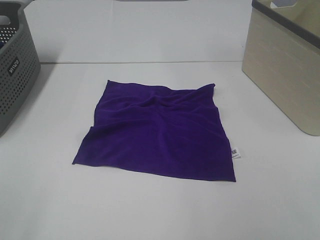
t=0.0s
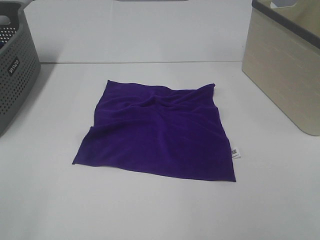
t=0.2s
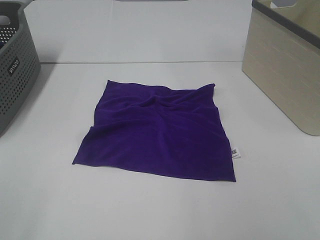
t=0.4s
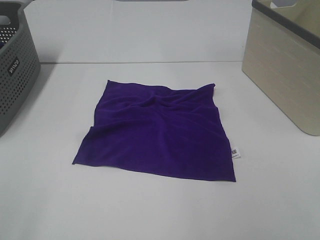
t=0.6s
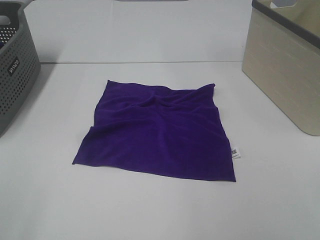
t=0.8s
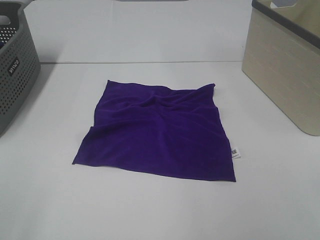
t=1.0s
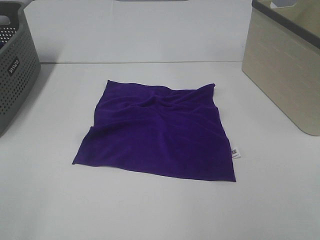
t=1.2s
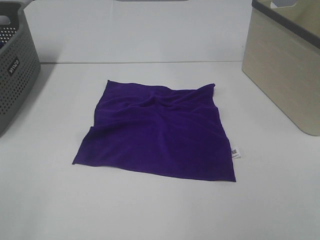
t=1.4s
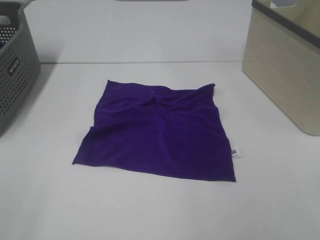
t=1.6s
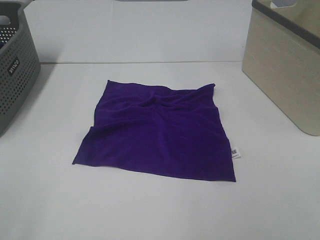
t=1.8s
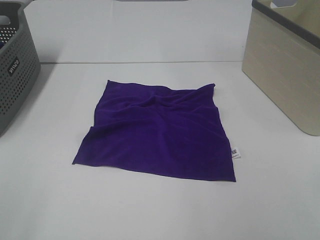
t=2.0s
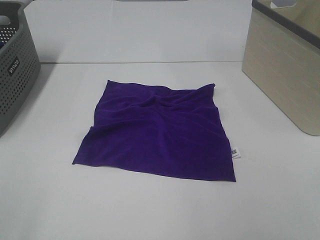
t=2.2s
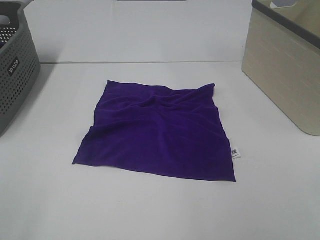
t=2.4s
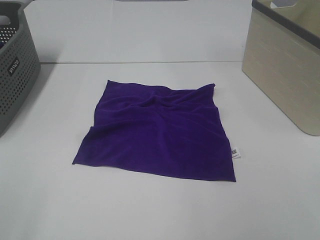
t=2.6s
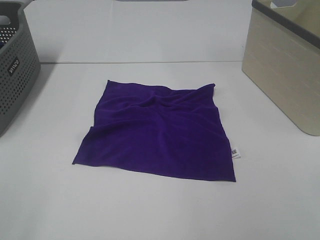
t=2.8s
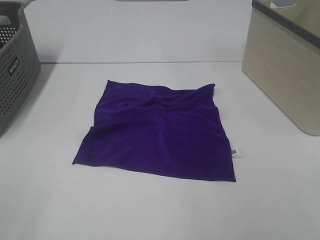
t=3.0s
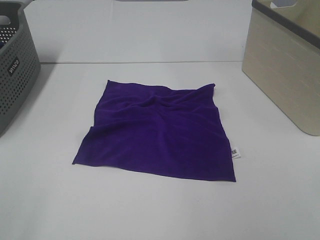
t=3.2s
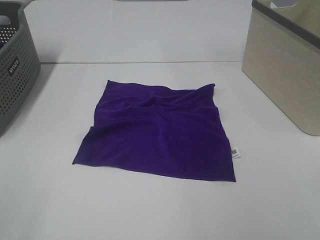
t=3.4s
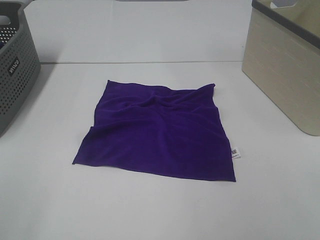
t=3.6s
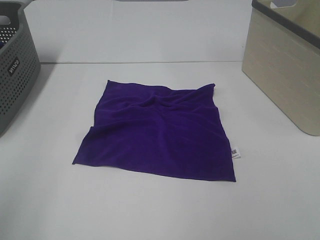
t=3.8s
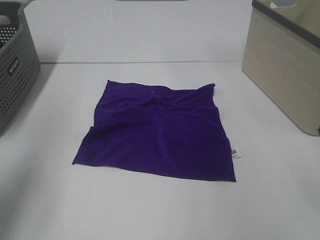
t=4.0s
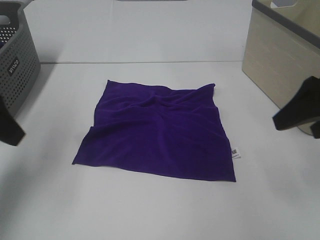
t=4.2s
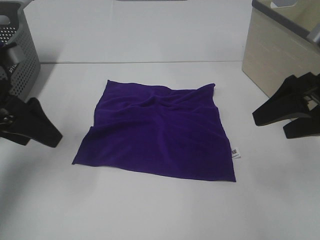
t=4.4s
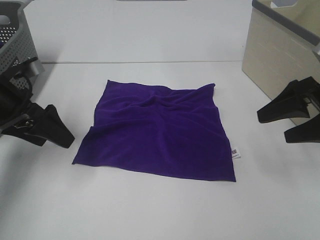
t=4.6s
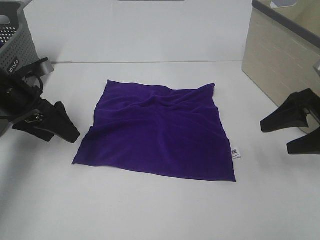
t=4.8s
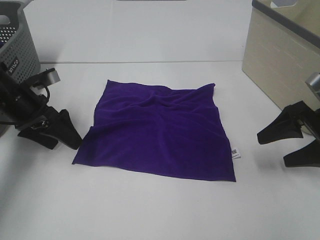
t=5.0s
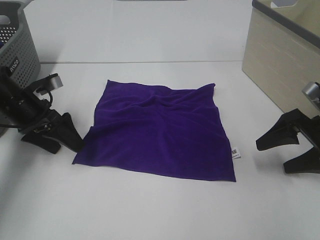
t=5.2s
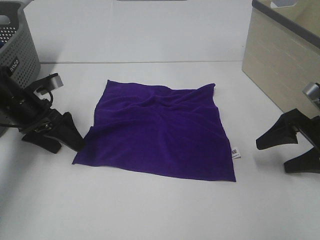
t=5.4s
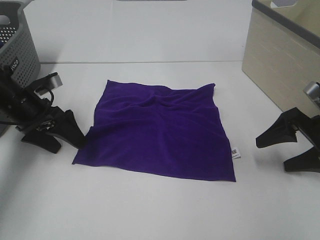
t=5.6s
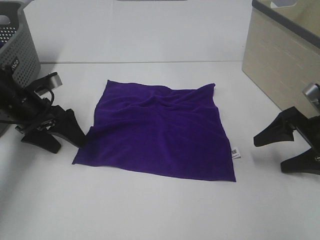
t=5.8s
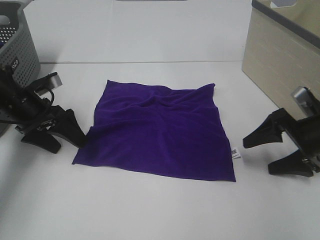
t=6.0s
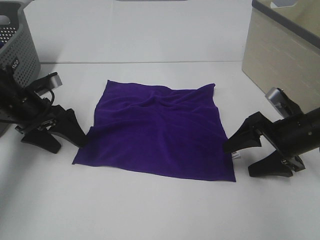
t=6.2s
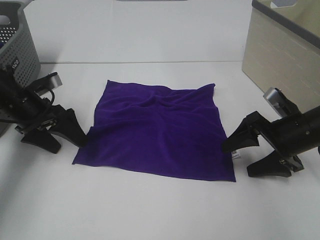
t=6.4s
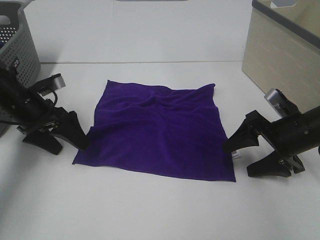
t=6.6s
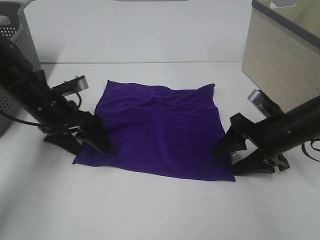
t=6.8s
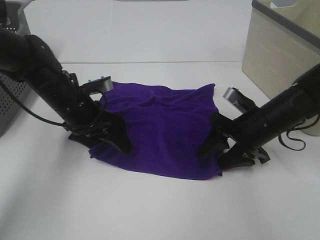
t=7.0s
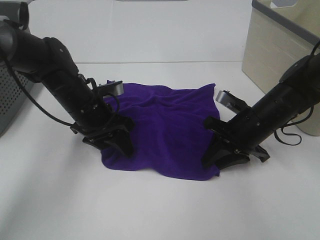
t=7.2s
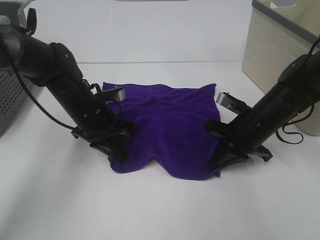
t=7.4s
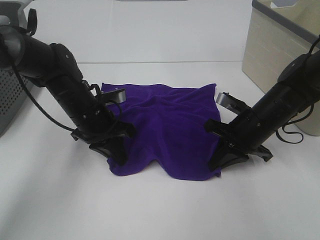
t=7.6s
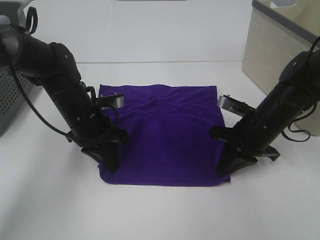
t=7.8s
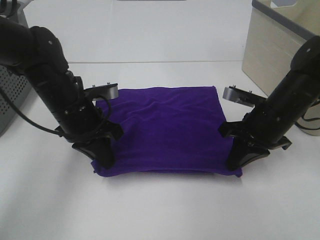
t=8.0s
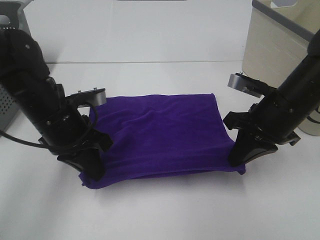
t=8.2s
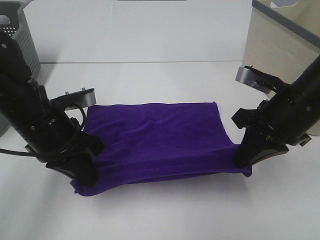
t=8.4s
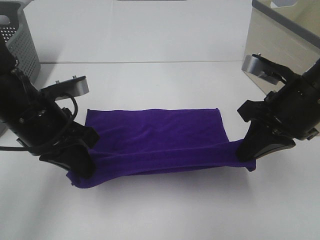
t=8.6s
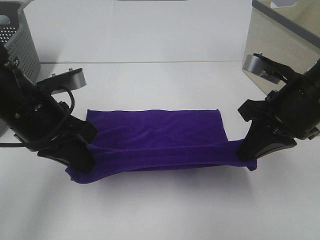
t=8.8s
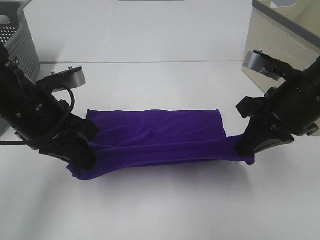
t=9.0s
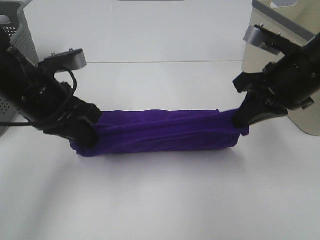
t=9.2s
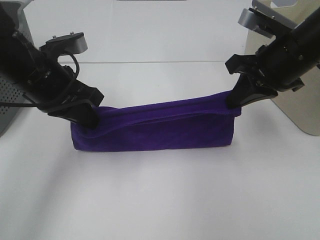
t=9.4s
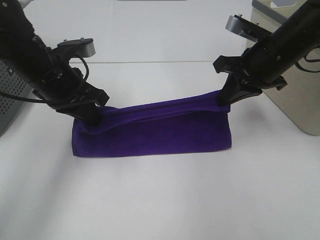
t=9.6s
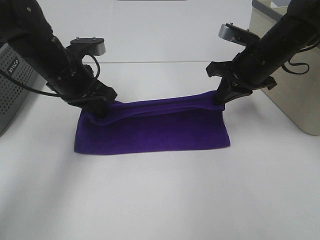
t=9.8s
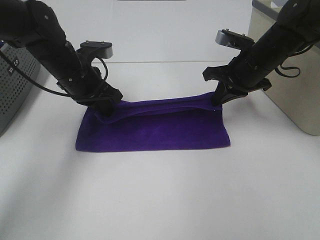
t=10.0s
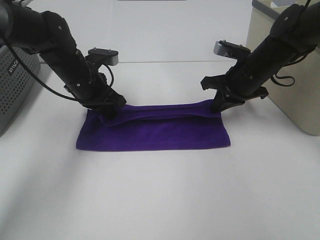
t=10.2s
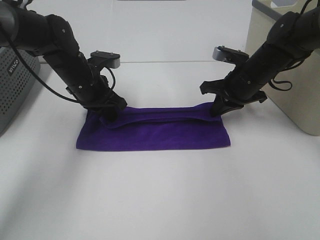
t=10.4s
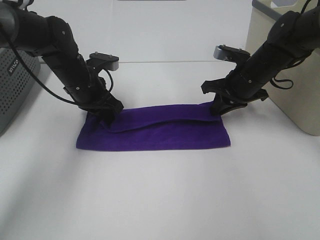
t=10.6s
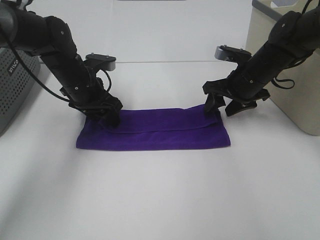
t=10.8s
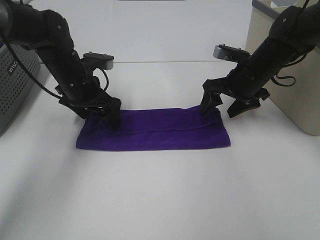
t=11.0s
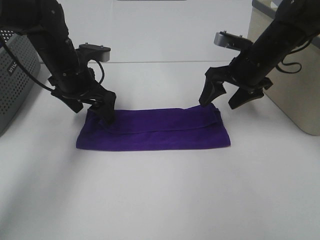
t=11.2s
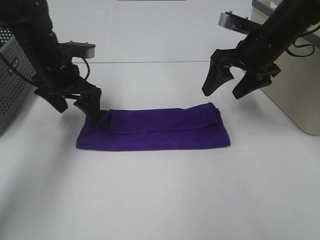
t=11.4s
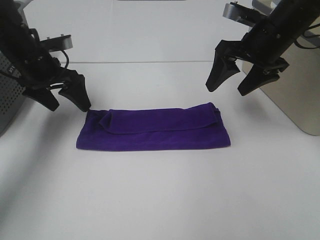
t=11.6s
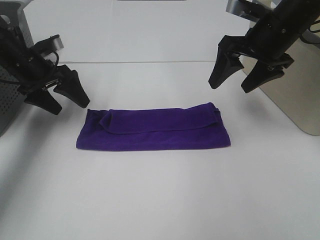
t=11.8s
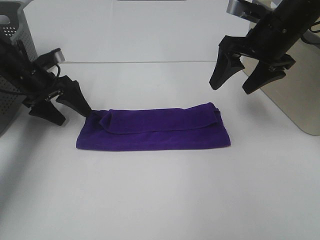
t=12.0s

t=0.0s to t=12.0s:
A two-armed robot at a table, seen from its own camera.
Task of the whole recording: Fold towels.
Step, t=0.0s to t=7.2s: Left hand: grab the bottom left corner of purple towel.
Step, t=0.0s to t=7.2s: Right hand: grab the bottom right corner of purple towel.
Step, t=7.4s to t=10.6s: Left hand: fold the purple towel up.
Step, t=7.4s to t=10.6s: Right hand: fold the purple towel up.
t=0.0s to t=3.0s: Both grippers stay about where they are.
t=3.0s to t=4.4s: Both grippers travel together forward, some 25 cm.
t=4.4s to t=6.0s: The left gripper shifts about 10 cm downward and forward. The right gripper heads downward, covering some 10 cm.
t=6.0s to t=7.6s: The right gripper is displaced to the left by about 10 cm, and closes, while the left gripper travels to the right by some 15 cm, and closes its fingers.
t=7.6s to t=9.0s: The two grippers go approximately 15 cm upward and backward.
t=9.0s to t=10.4s: Both grippers move forward and downward, roughly 15 cm.
t=10.4s to t=12.0s: The right gripper goes about 10 cm upward, and opens up. Meanwhile the left gripper travels to the left by roughly 10 cm, and opens up.

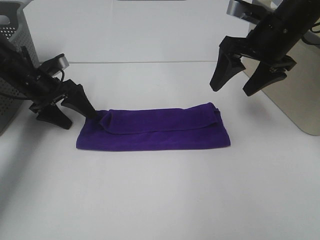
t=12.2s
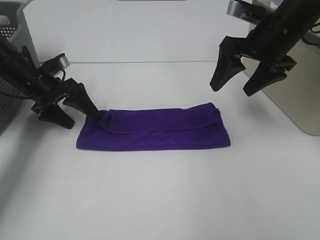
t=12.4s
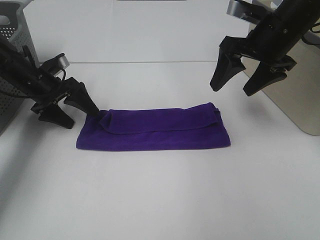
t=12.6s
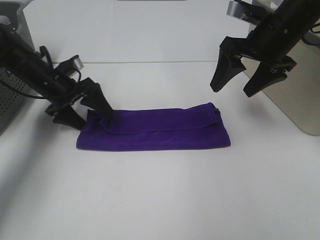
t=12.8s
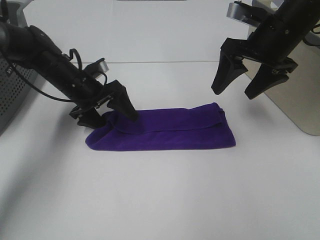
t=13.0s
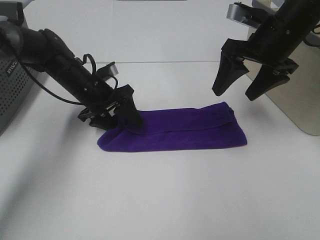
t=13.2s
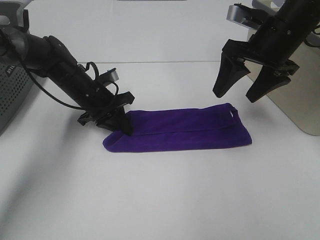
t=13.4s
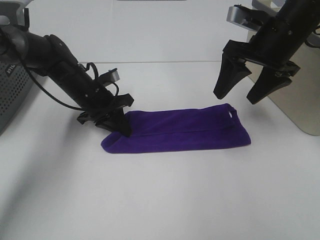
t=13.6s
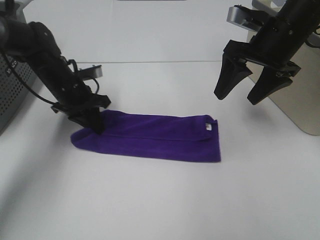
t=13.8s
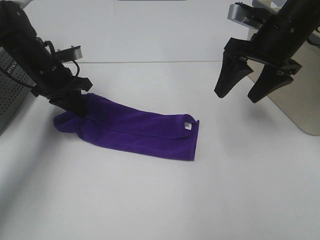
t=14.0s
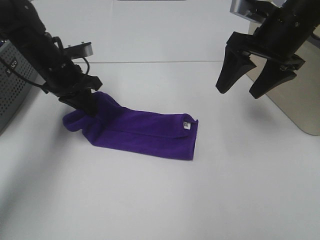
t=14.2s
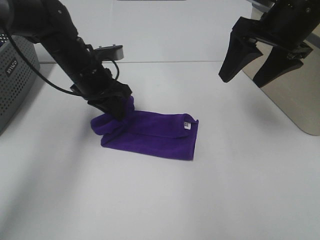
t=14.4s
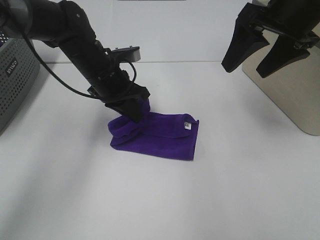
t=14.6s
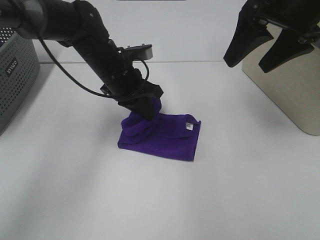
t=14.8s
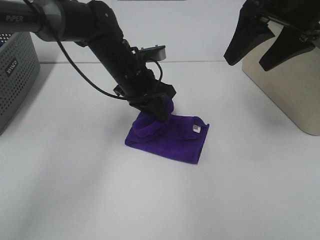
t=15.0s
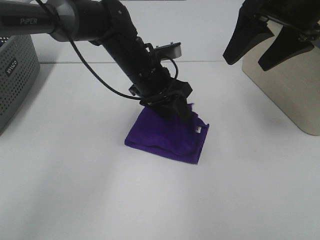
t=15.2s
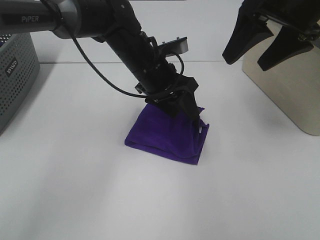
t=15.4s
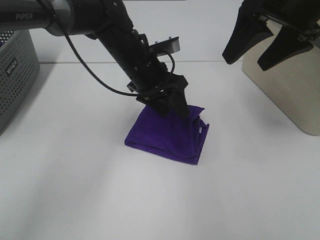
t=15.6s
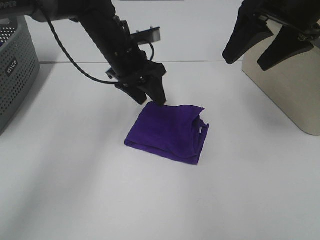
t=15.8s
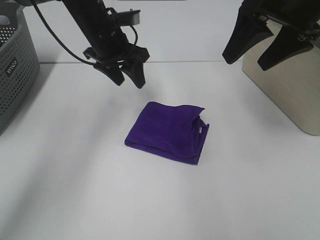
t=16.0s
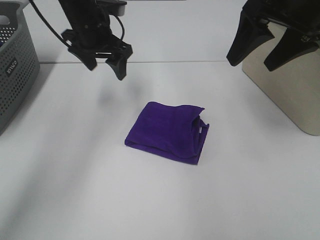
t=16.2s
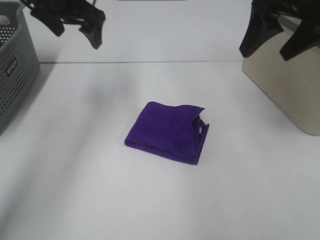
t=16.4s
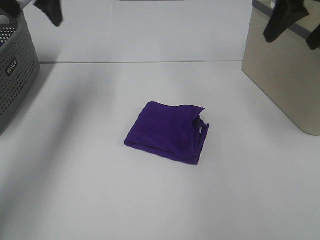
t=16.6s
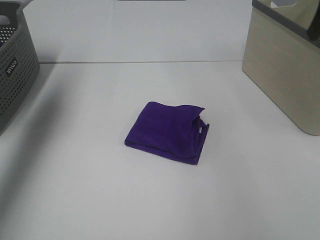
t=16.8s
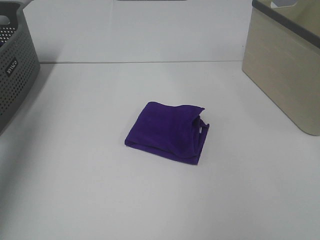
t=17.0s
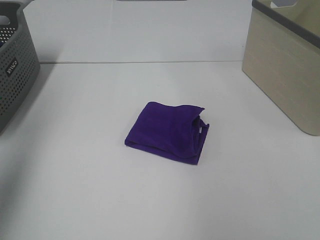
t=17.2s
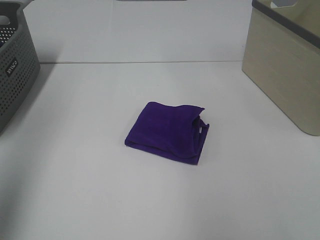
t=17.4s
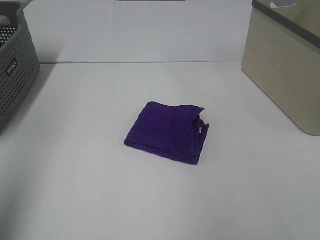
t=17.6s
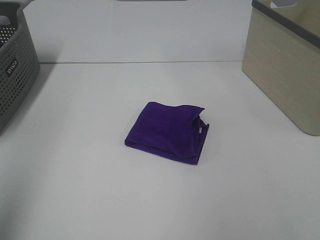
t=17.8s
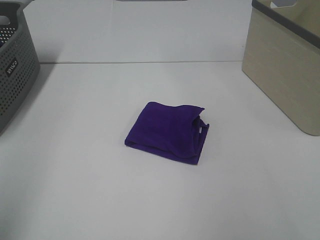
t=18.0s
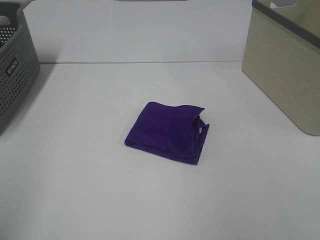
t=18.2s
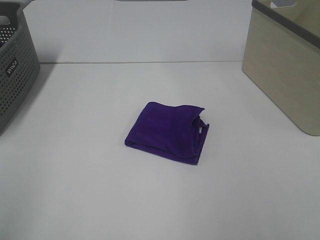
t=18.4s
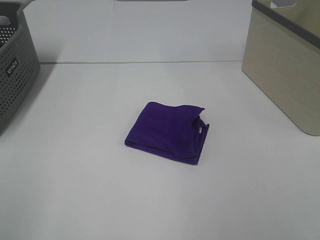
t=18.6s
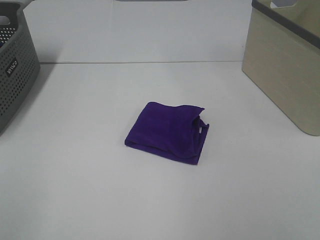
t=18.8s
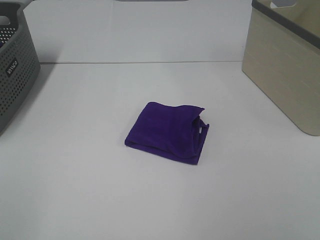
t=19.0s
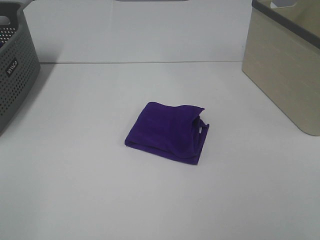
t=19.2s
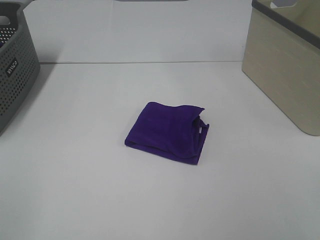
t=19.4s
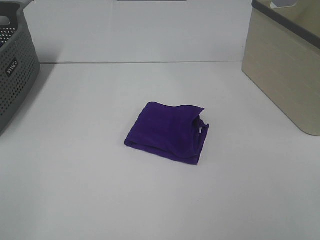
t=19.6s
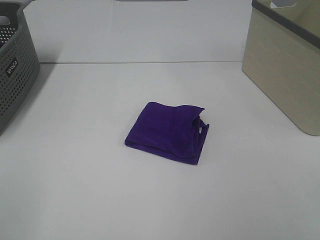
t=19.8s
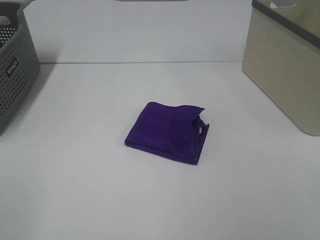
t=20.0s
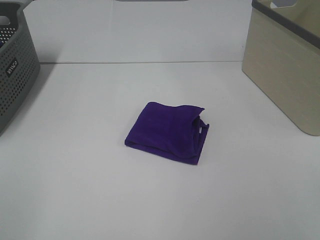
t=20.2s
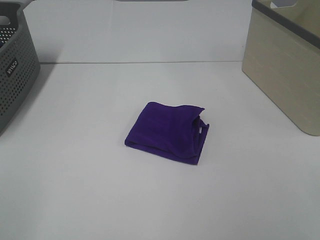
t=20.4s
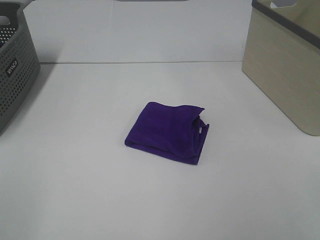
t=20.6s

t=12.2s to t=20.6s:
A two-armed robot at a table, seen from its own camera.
Task of the whole recording: Fold towels.
Step, t=12.2s to t=15.0s: Left hand: fold the purple towel from left to right.
t=12.2s to t=13.6s: The left gripper shifts approximately 10 cm to the right, and closes up.
t=13.6s to t=15.0s: The right gripper shifts roughly 10 cm upward, while the left gripper heads to the right and upward, covering about 10 cm.
t=15.0s to t=16.4s: The left gripper travels upward and to the left by some 20 cm, and opens up.
t=16.4s to t=17.8s: The right gripper moves backward, some 25 cm; the left gripper travels backward by about 40 cm.
t=17.8s to t=19.2s: The left gripper moves backward and downward, some 15 cm.
